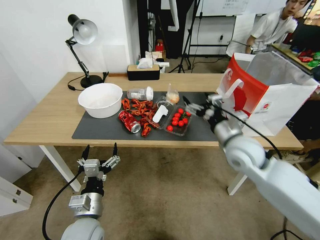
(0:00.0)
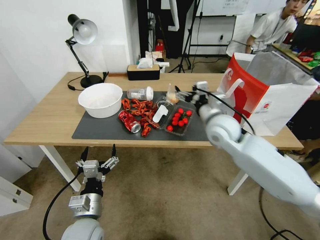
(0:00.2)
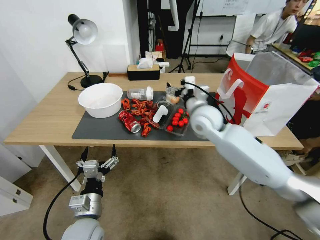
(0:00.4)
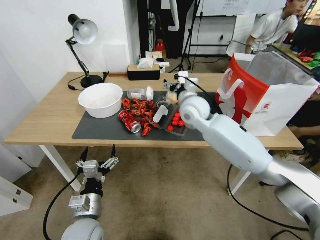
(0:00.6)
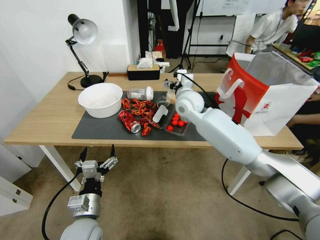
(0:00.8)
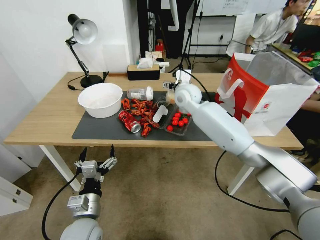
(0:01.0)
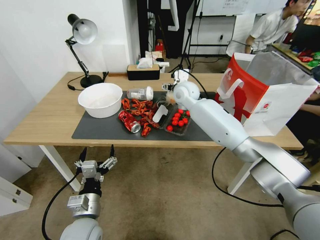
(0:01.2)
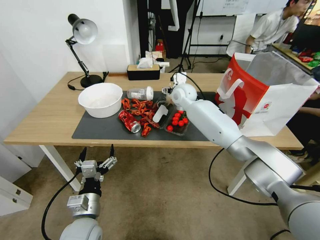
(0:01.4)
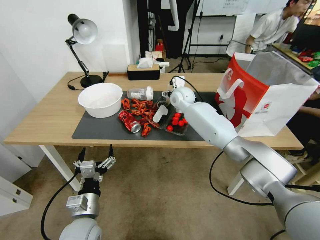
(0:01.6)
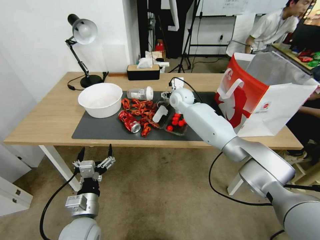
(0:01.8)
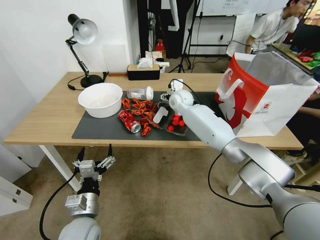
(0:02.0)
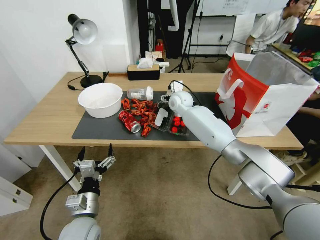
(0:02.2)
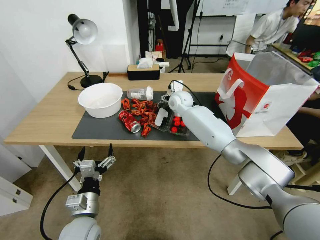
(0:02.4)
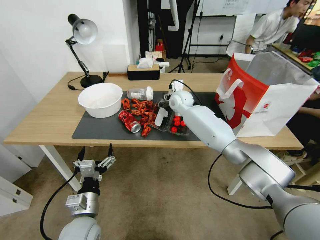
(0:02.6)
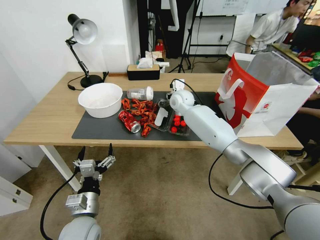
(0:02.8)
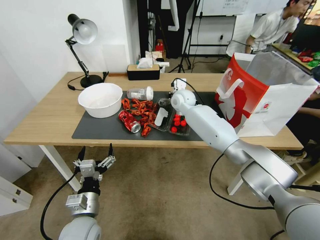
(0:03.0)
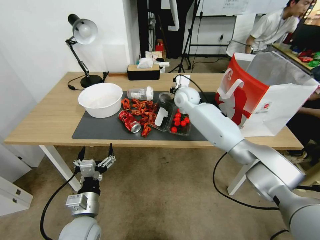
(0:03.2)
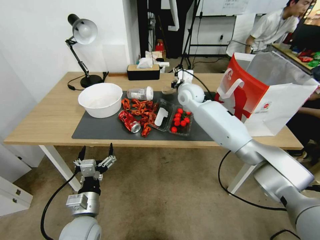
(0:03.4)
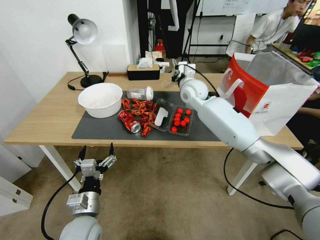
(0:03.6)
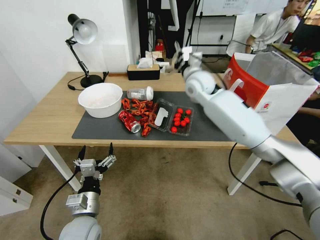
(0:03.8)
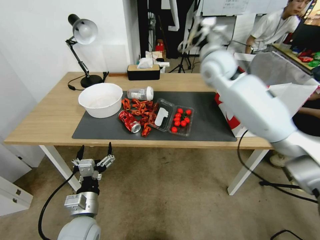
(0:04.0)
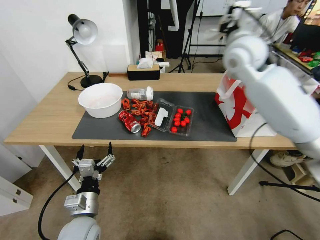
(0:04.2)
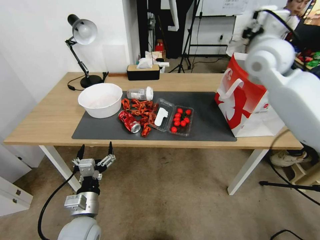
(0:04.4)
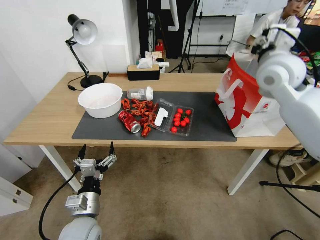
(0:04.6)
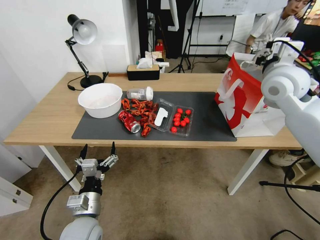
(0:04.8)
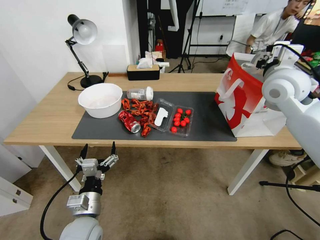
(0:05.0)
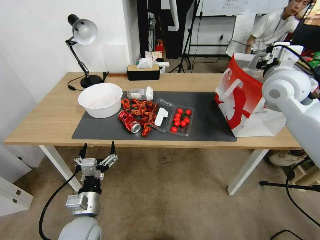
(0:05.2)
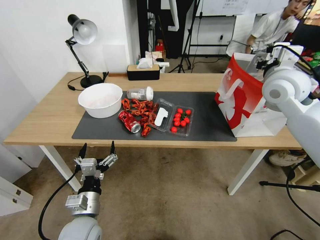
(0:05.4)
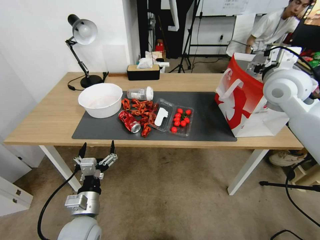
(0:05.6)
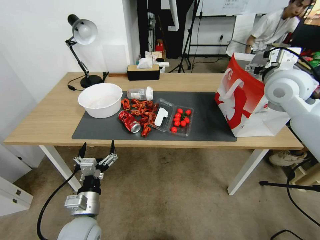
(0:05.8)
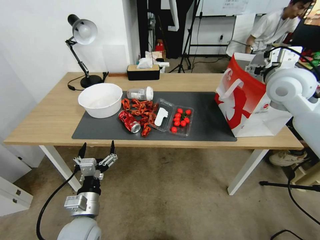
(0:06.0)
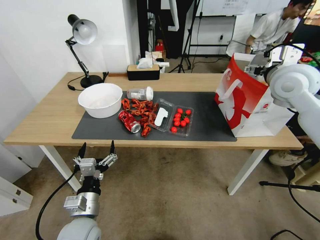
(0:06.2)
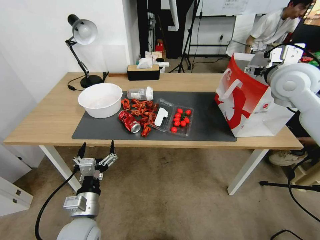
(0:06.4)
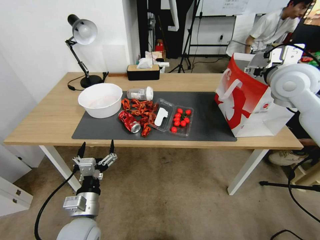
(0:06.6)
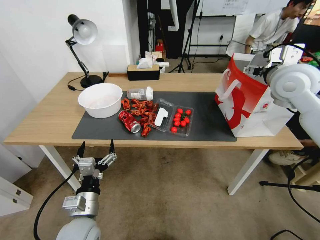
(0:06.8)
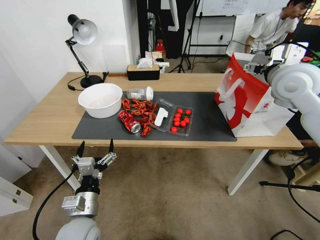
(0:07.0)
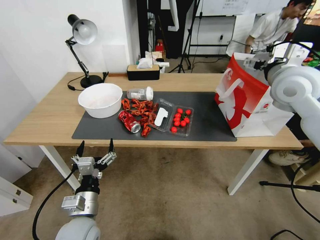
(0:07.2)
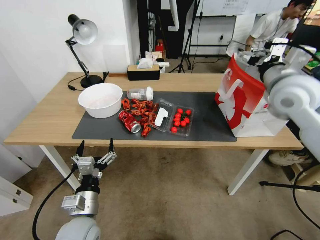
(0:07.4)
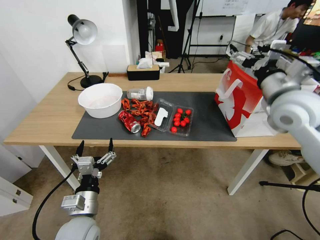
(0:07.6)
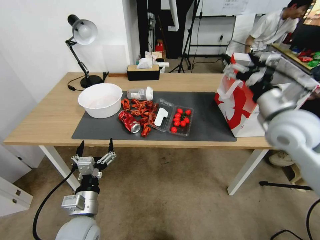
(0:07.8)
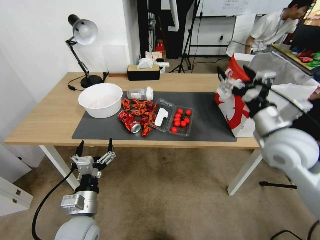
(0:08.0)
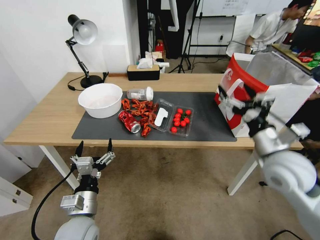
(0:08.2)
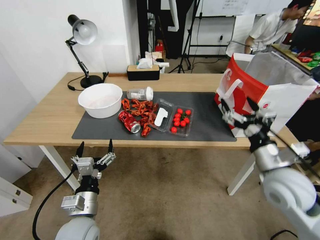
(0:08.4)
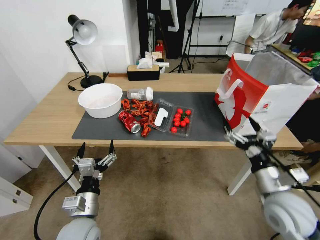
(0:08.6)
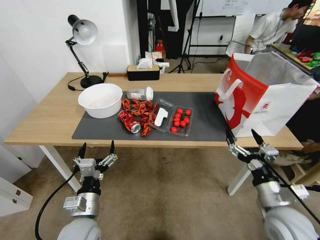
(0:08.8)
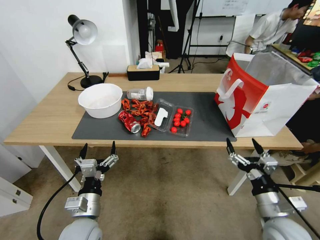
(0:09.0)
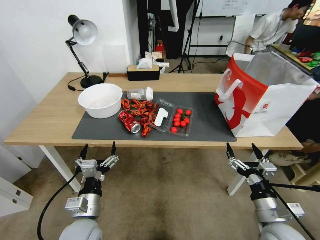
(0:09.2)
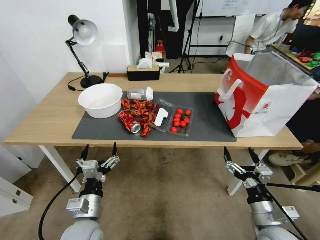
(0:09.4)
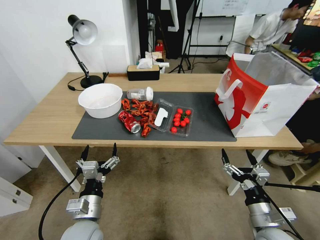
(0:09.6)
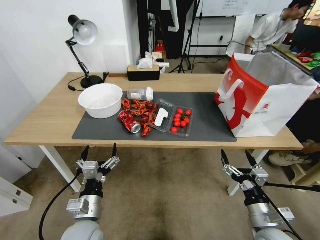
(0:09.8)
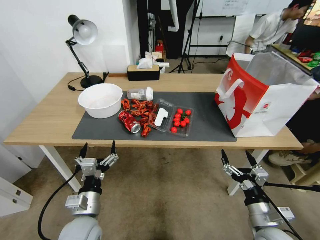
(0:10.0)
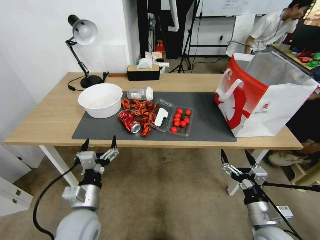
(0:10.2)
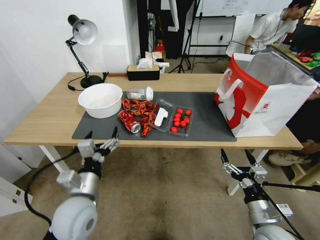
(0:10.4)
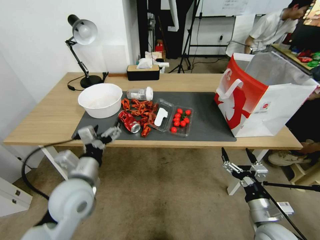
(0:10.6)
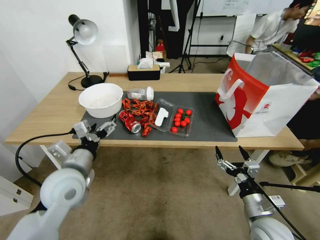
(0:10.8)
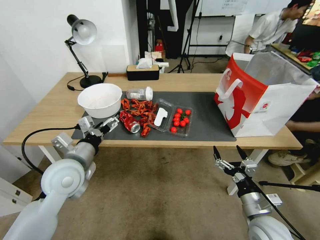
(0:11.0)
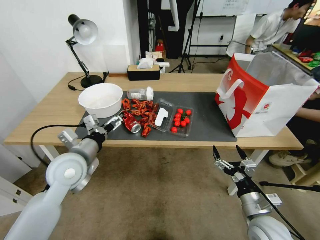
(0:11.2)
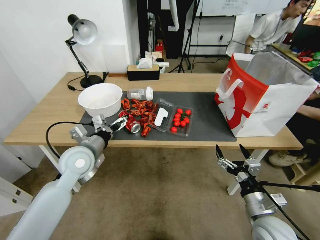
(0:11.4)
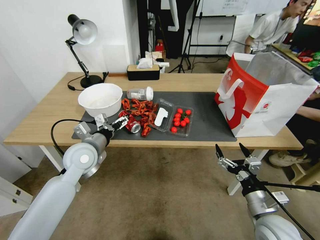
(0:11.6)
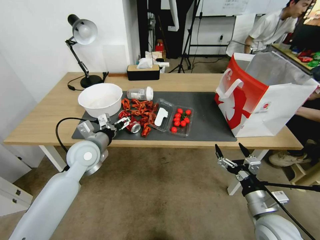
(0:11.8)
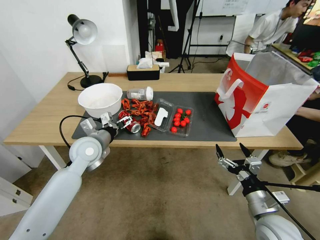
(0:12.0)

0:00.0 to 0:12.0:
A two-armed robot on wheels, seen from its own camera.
0:00.0 to 0:01.6: The right gripper travels forward and to the left by approximately 30 cm.
0:01.6 to 0:03.0: The right gripper closes.
0:03.0 to 0:04.4: The right gripper moves upward, to the right and backward, approximately 30 cm.
0:04.4 to 0:06.0: The right gripper travels to the right and downward by roughly 10 cm, and opens its fingers.
0:06.0 to 0:07.6: The right gripper goes roughly 5 cm backward.
0:07.6 to 0:09.0: The right gripper goes roughly 35 cm downward and backward.
0:09.0 to 0:10.4: The left gripper travels upward by roughly 5 cm.
0:10.4 to 0:12.0: The left gripper is displaced forward by approximately 15 cm.

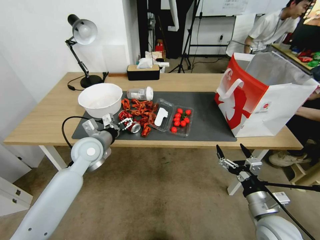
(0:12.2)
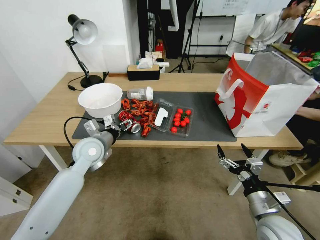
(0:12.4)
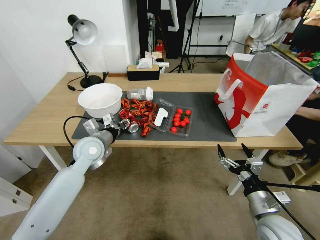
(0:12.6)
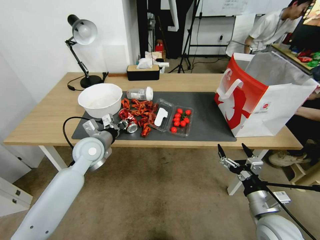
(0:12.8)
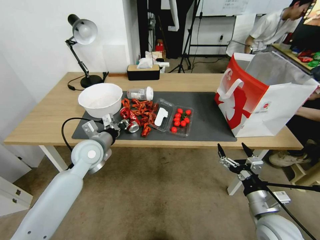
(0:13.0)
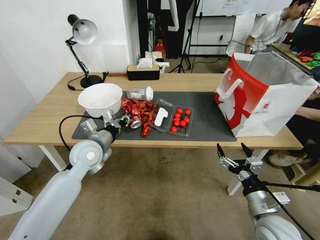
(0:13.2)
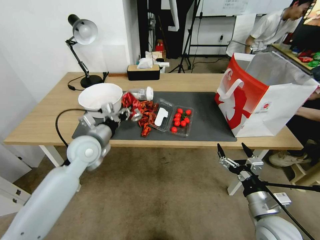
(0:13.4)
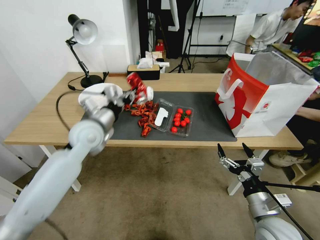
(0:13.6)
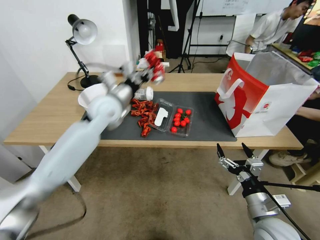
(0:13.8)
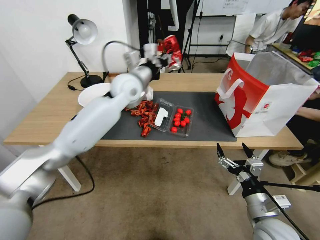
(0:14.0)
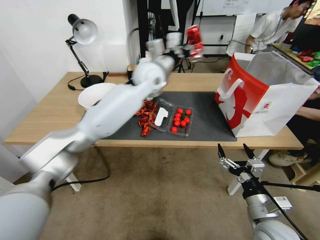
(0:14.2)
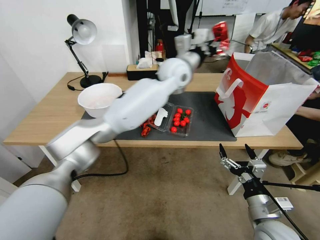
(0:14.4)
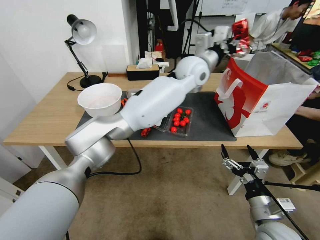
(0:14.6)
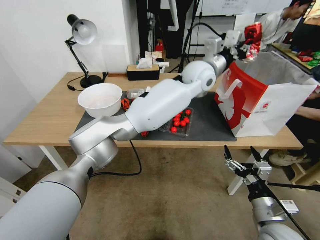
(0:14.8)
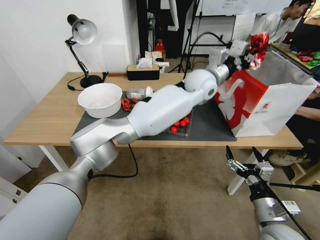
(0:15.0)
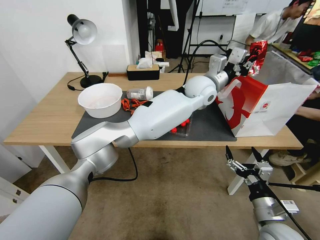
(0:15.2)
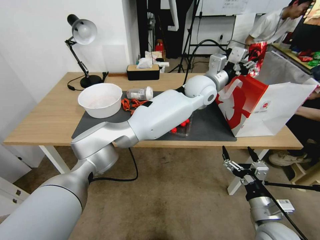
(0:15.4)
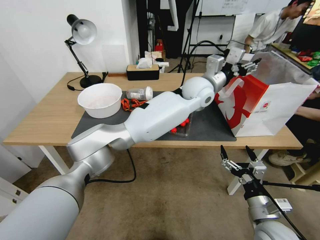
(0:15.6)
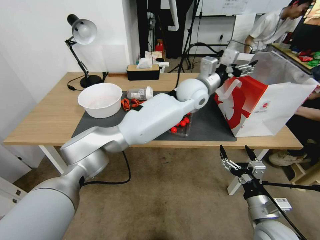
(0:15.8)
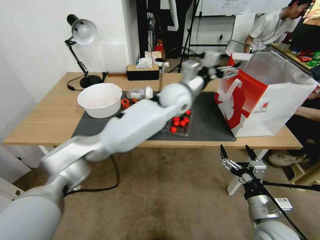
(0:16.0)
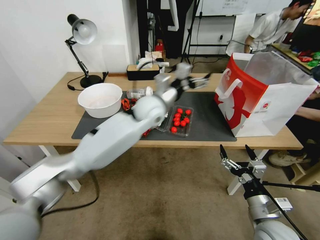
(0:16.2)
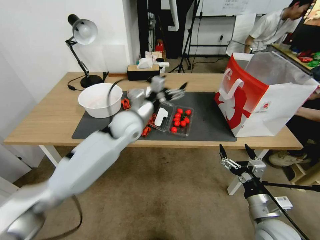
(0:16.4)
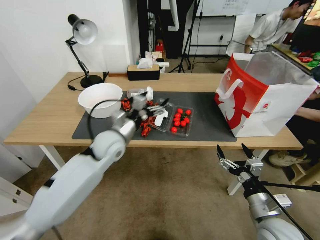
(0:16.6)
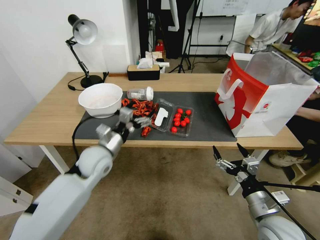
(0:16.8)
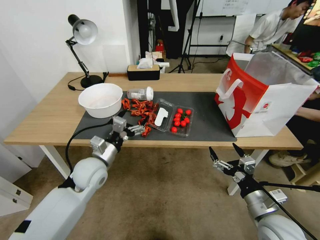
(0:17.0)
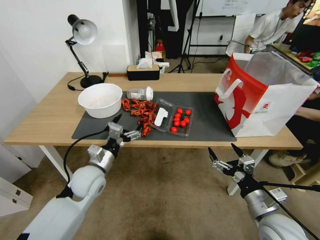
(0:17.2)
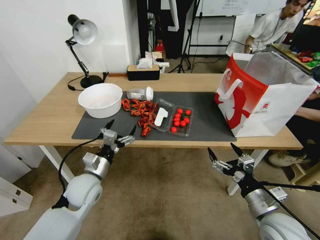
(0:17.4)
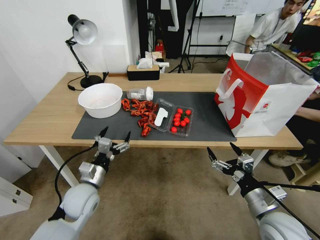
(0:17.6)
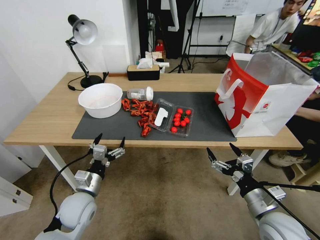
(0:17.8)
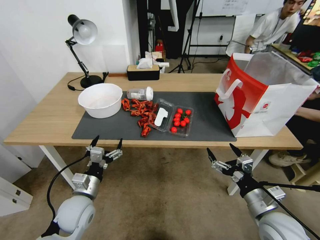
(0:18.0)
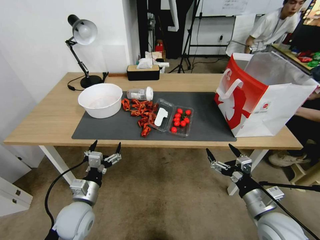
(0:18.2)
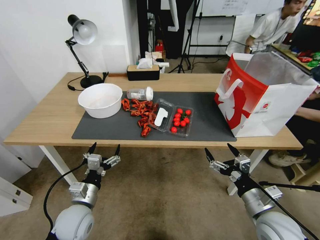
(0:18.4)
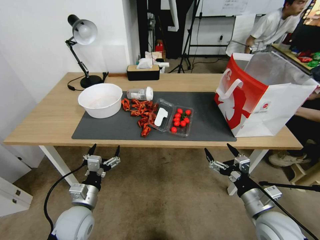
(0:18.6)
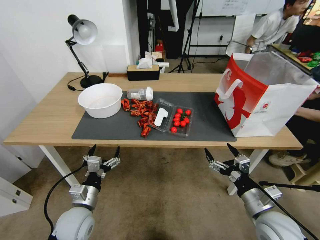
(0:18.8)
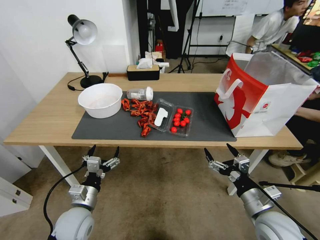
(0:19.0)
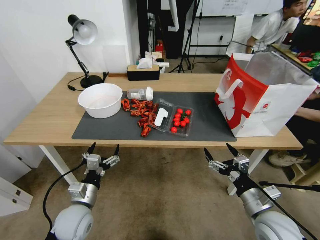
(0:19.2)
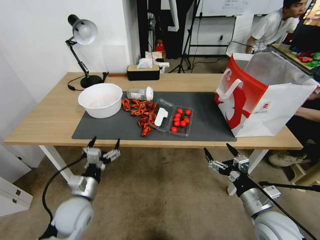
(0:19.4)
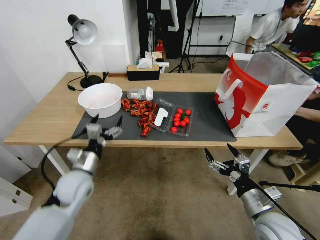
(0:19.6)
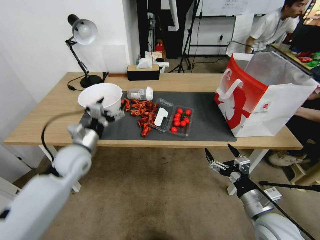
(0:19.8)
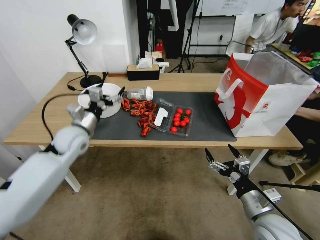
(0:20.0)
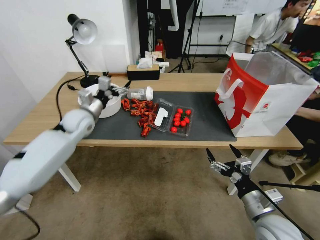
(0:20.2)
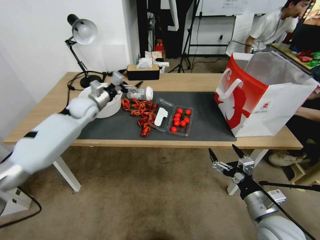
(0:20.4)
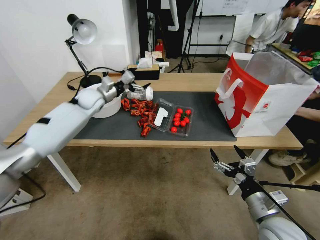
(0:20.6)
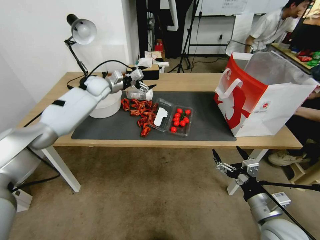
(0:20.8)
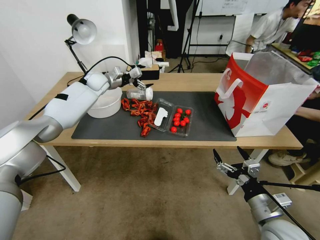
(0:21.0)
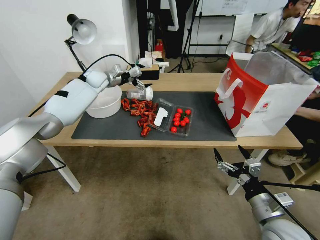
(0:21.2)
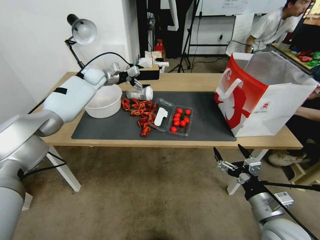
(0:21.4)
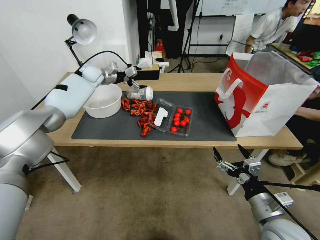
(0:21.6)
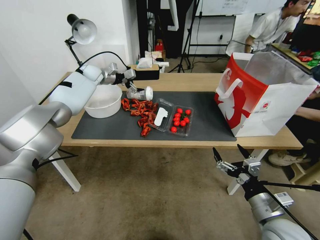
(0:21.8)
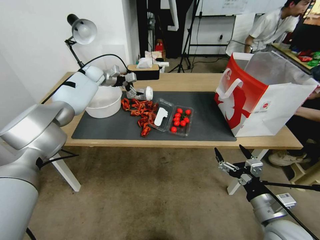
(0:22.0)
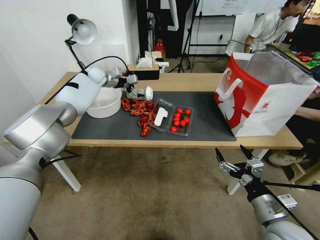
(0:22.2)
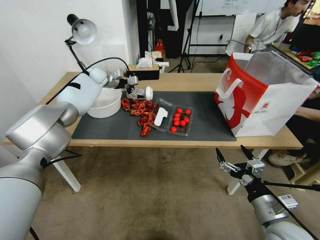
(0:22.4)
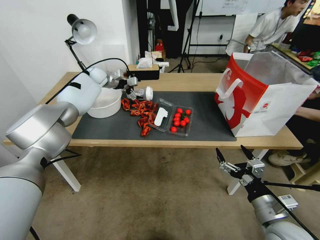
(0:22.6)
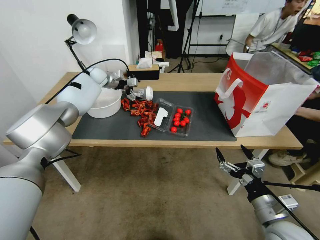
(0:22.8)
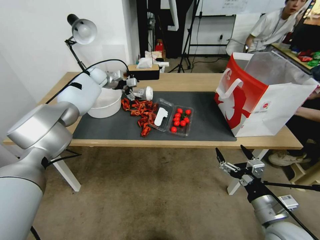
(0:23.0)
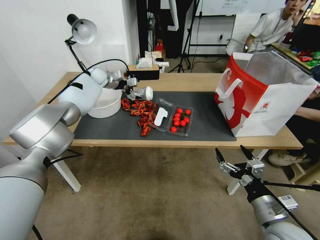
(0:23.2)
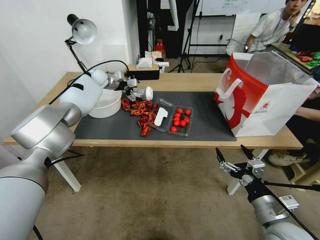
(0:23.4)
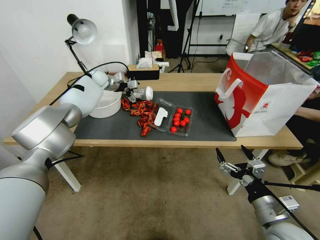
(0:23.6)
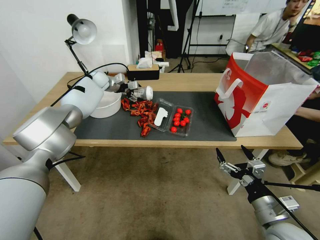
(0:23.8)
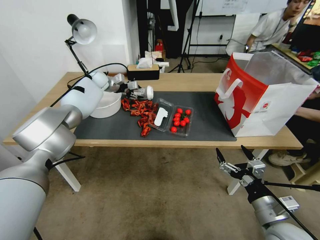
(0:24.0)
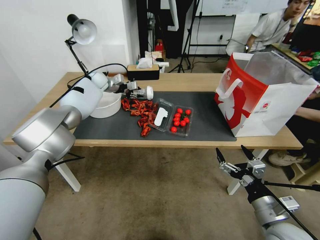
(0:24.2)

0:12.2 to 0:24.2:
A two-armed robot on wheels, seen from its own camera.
0:12.2 to 0:13.8: The left gripper heads upward, forward and to the right, covering about 15 cm, and closes.
0:13.8 to 0:15.2: The left gripper moves to the right, roughly 30 cm.
0:15.2 to 0:16.6: The left gripper goes some 35 cm to the left, downward and backward, and opens up.
0:16.6 to 0:18.2: The left gripper is displaced backward, downward and to the left by about 25 cm.
0:18.2 to 0:19.8: The left gripper moves forward and upward, some 15 cm.
0:19.8 to 0:21.2: The left gripper travels forward by some 30 cm.
0:22.6 to 0:24.2: The left gripper closes its fingers.
